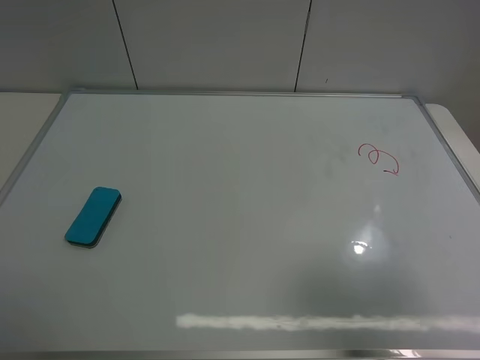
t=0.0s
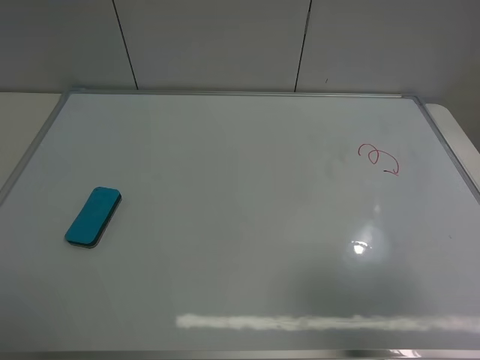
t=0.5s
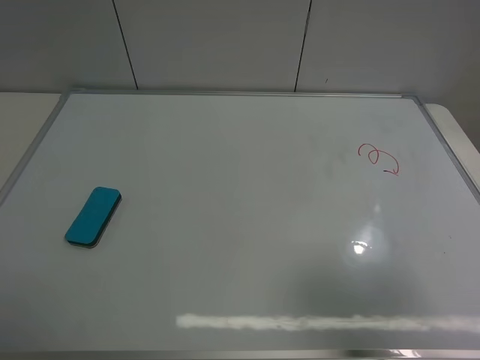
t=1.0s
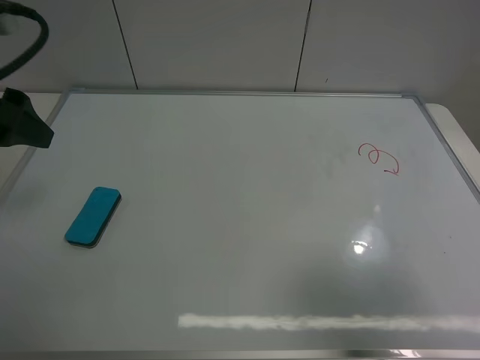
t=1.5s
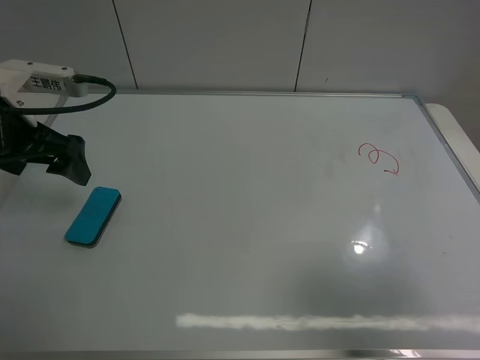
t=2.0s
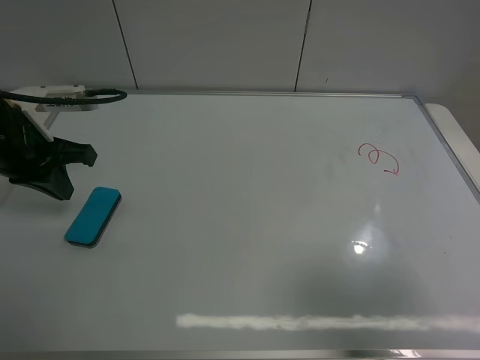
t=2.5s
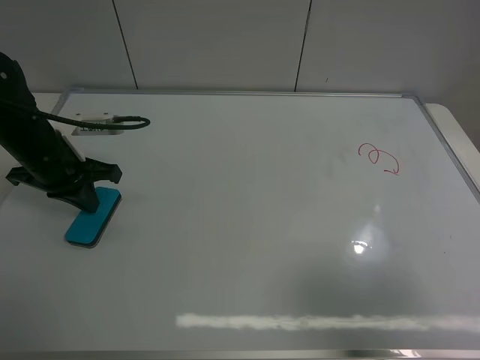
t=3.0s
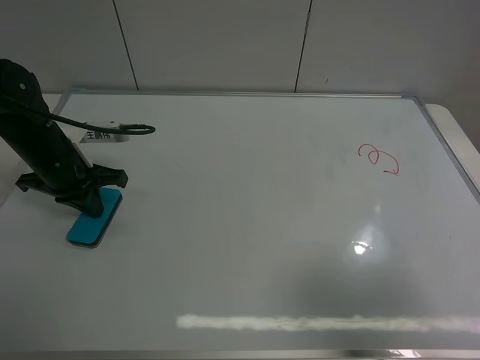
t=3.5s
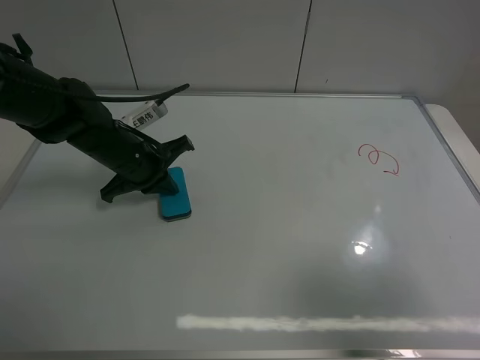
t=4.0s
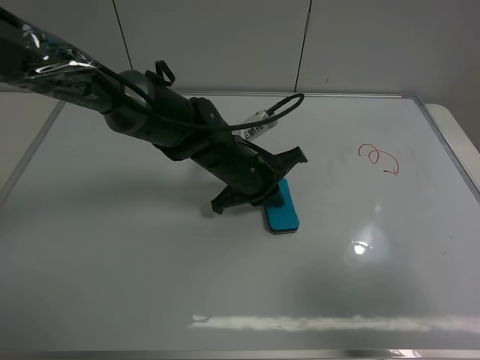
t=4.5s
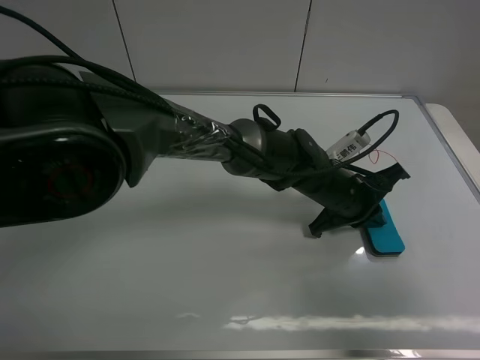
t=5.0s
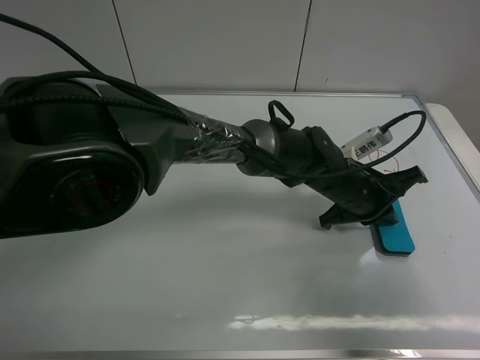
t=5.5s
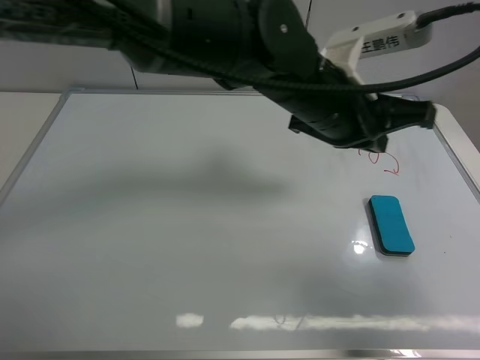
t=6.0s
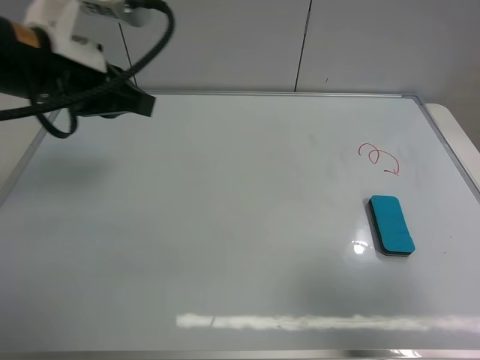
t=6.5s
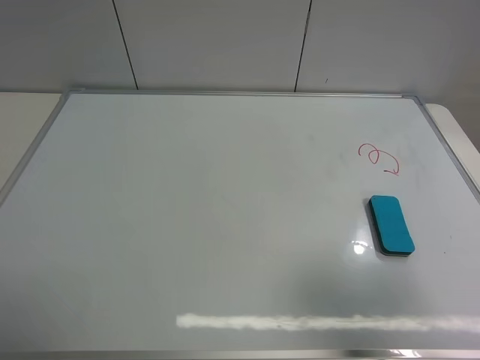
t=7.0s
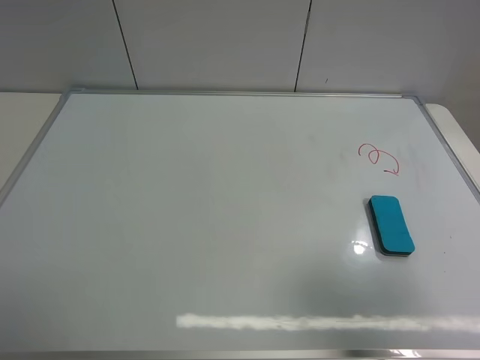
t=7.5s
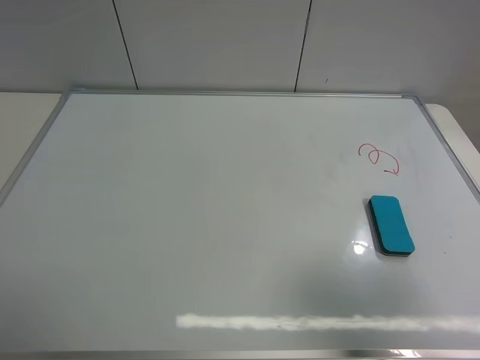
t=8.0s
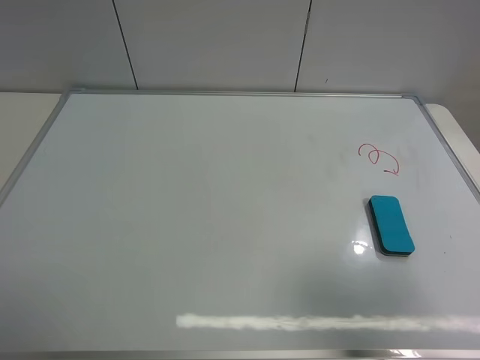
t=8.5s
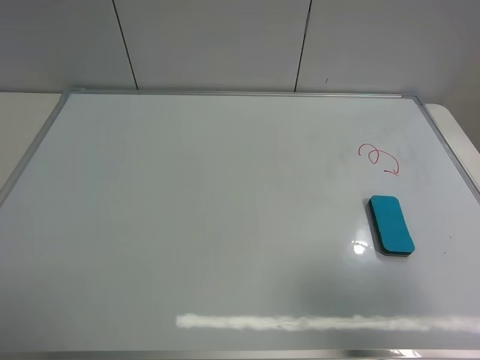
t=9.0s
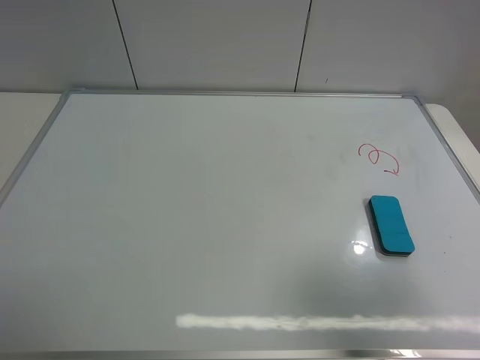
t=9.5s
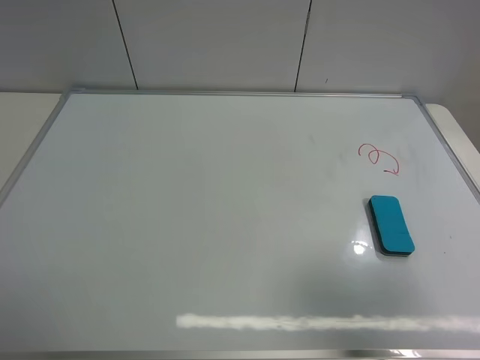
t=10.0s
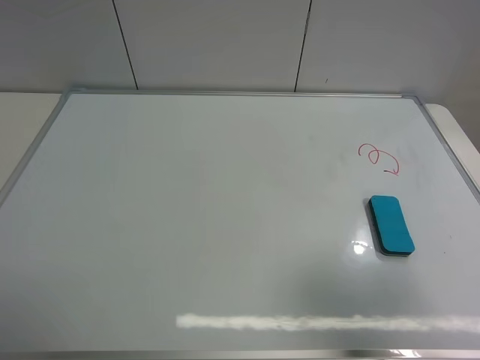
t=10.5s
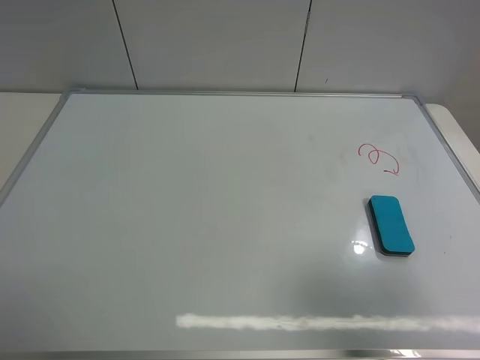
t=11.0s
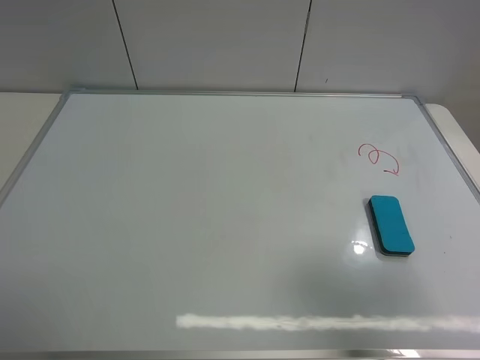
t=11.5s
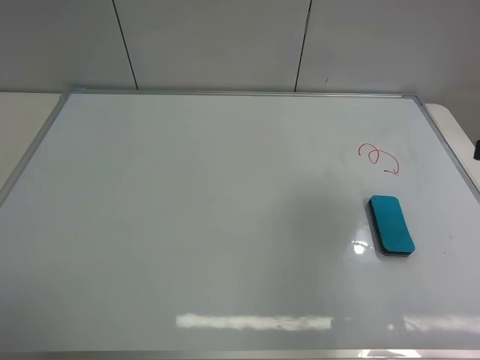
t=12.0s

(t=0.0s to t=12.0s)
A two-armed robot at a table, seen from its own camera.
Task of the whole recording: use the left gripper to place the eraser in the right, use the right gripper to pick up the eraser, wipe the notes on the whiteboard clean, and then put it down.
Step, t=0.0s - t=5.5s: Move the board eraser to the right of the whiteboard with left gripper.
t=0.0s - t=2.0s: The left gripper travels forward by some 25 cm.
t=2.0s - t=4.0s: The left gripper shifts some 15 cm downward and to the right, and closes its fingers.
t=4.0s - t=6.0s: The left gripper travels to the right and upward by roughly 25 cm.
t=6.0s - t=8.0s: The left gripper shifts roughly 50 cm to the left and backward, and opens.
t=8.0s - t=10.0s: The two grippers keep their place.
t=10.0s - t=12.0s: The right gripper is displaced forward by about 15 cm.

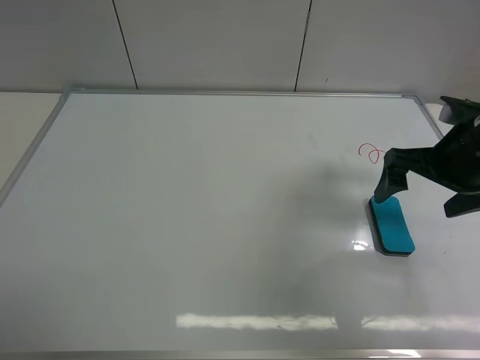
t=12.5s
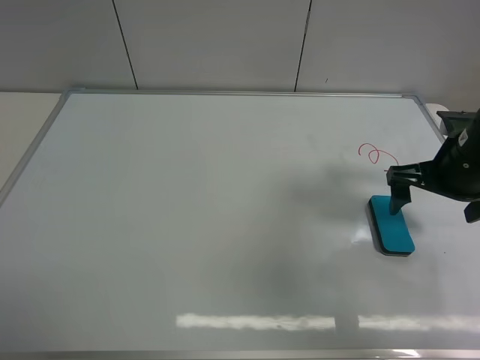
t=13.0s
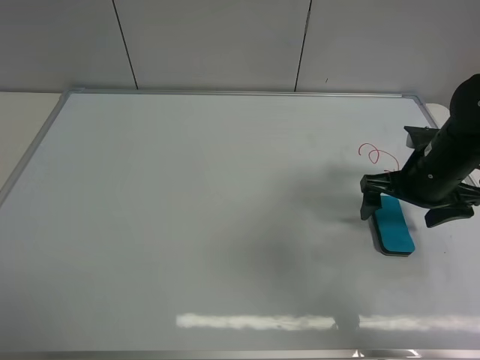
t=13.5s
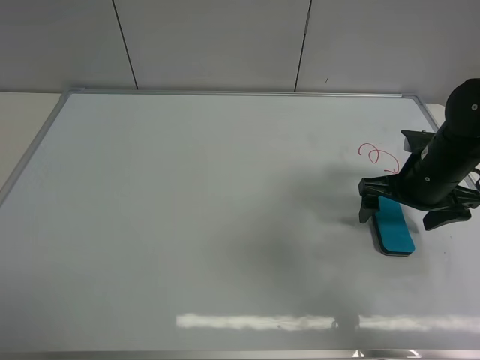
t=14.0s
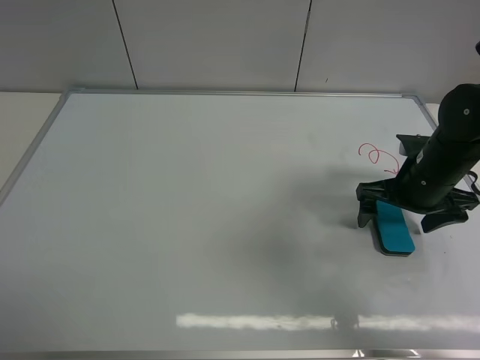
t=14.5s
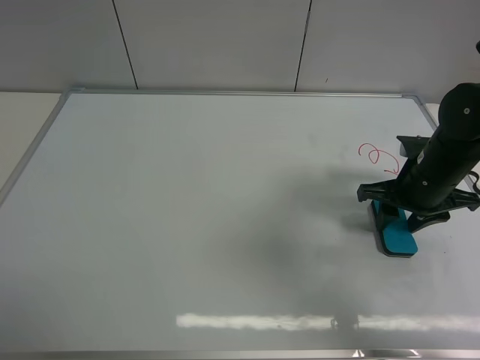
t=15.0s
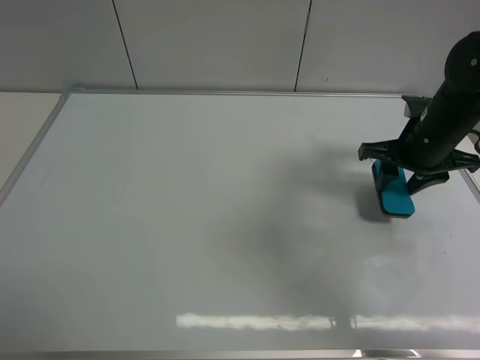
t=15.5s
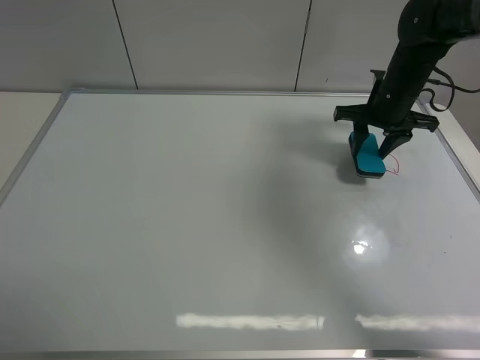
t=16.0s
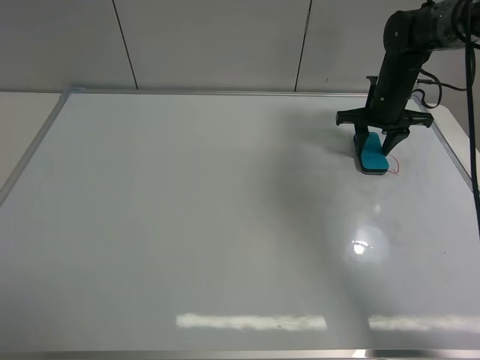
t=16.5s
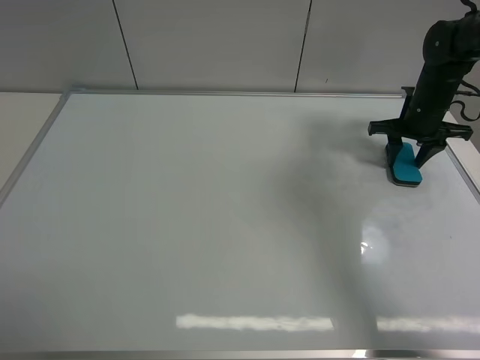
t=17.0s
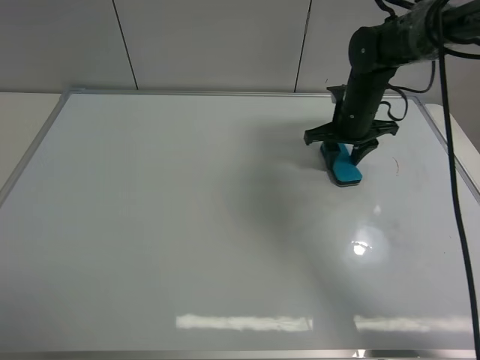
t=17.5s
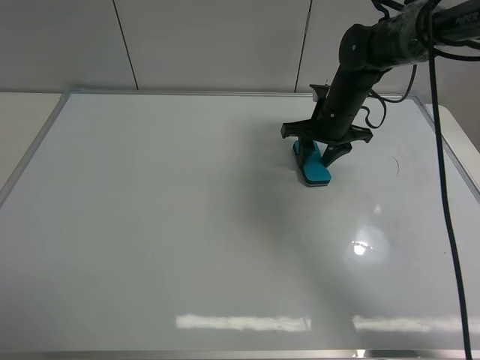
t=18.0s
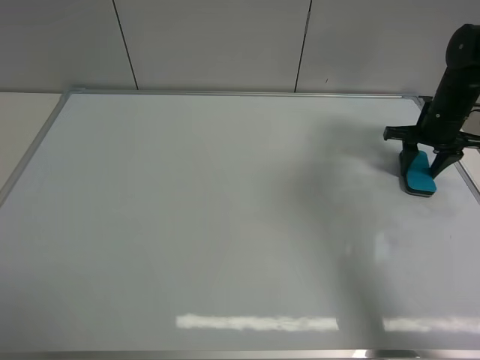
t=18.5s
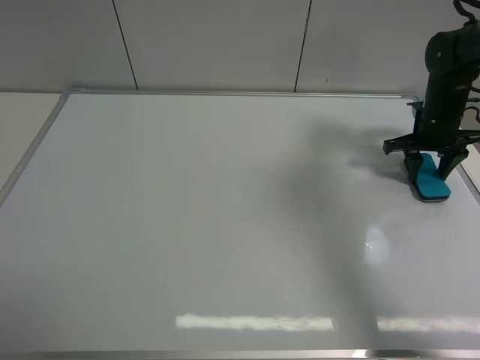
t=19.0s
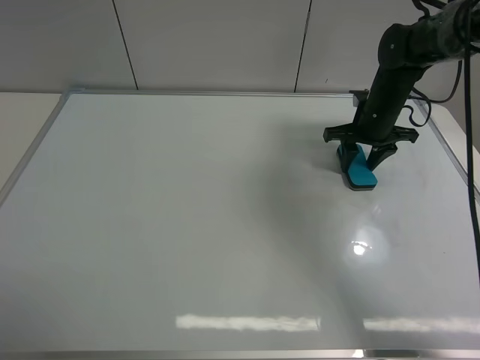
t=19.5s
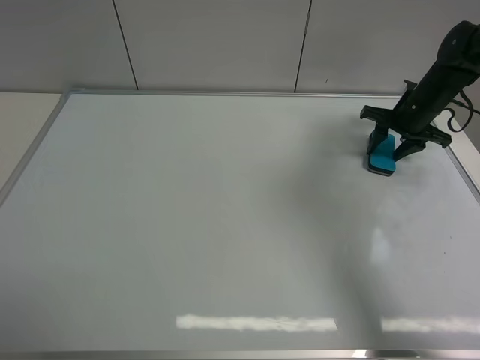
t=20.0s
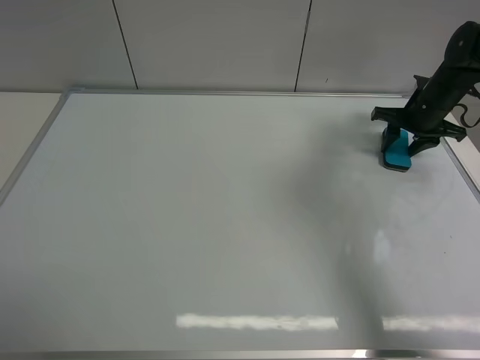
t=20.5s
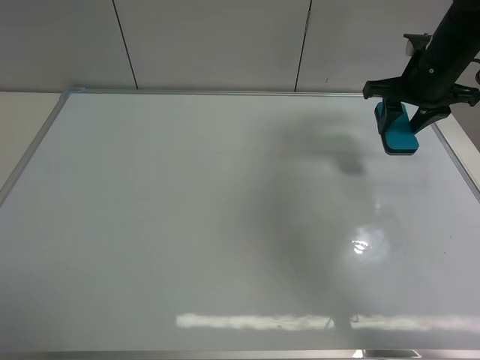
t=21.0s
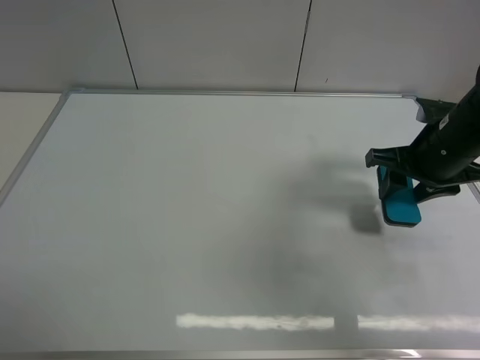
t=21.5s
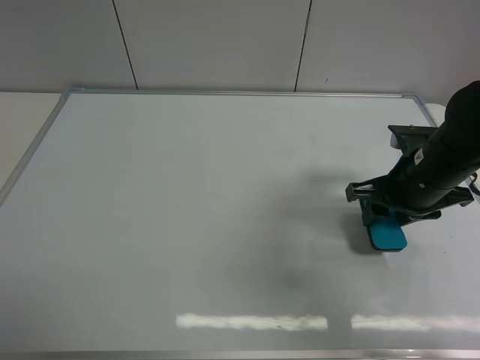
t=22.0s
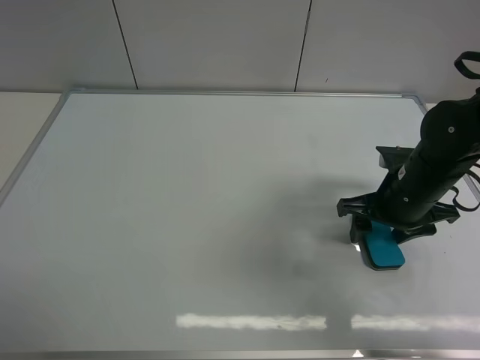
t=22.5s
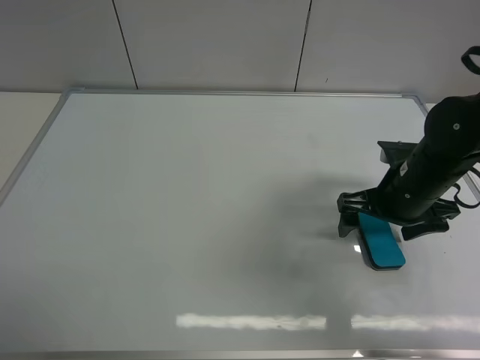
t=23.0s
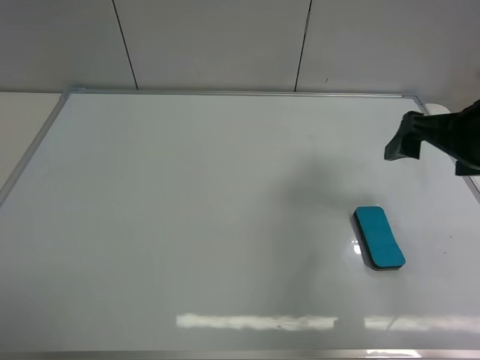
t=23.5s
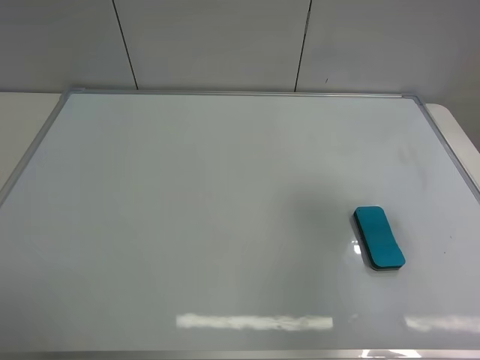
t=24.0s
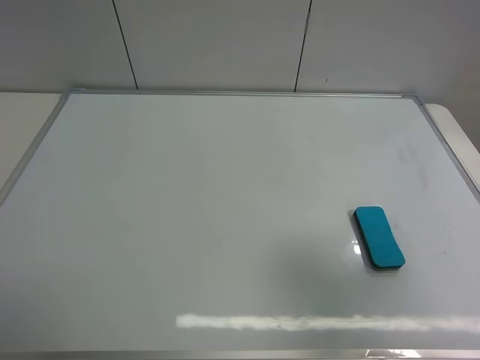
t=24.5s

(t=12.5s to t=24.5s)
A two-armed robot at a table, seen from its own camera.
Task of the whole recording: use the left gripper to place the eraser in the right, use the right gripper to pick up the eraser, wipe the notes on the whiteboard clean, and then put it down.
Step, t=12.5s - t=15.0s: Pick up the board eraser with right gripper.
Step, t=15.5s - t=20.5s: Wipe off the writing on the board with right gripper.
Step, t=21.0s - t=22.5s: Place the board eraser on the right side of board with right gripper.
t=12.5s - t=14.5s: The right gripper shifts about 5 cm downward.
t=14.5s - t=16.5s: The right gripper heads forward, covering about 20 cm, and closes.
t=16.5s - t=18.5s: The right gripper moves left and right over approximately 20 cm, changing direction 2 times.
t=18.5s - t=20.5s: The right gripper reaches roughly 10 cm to the left, then returns.
t=20.5s - t=22.5s: The right gripper is displaced backward and to the left by approximately 20 cm, and opens up.
t=22.5s - t=24.5s: The right gripper travels backward and upward by roughly 30 cm, and opens.

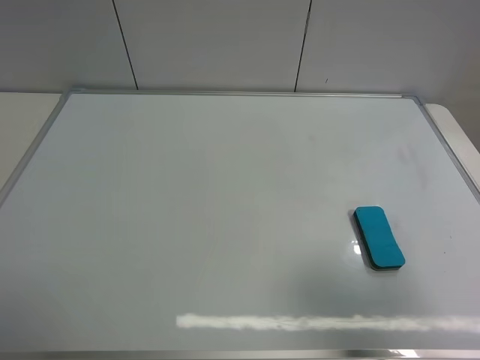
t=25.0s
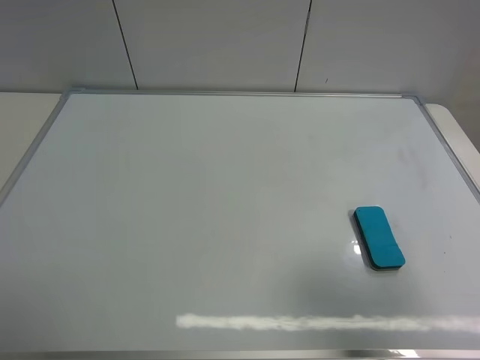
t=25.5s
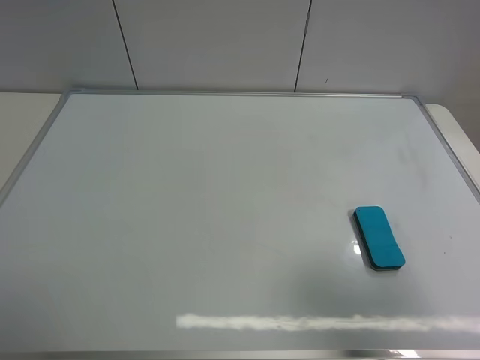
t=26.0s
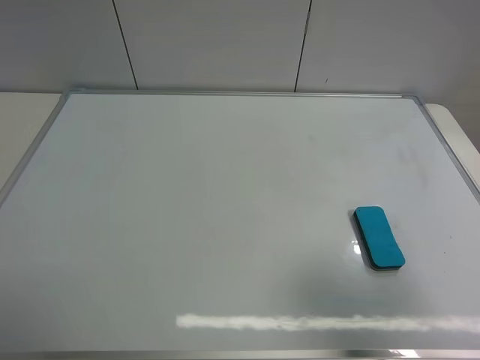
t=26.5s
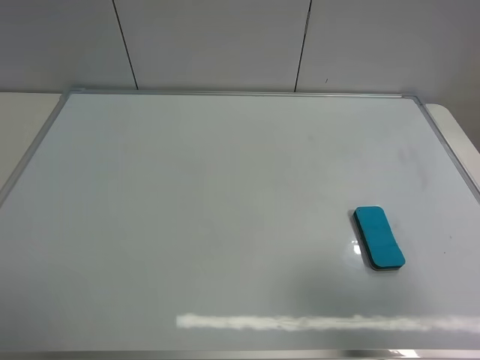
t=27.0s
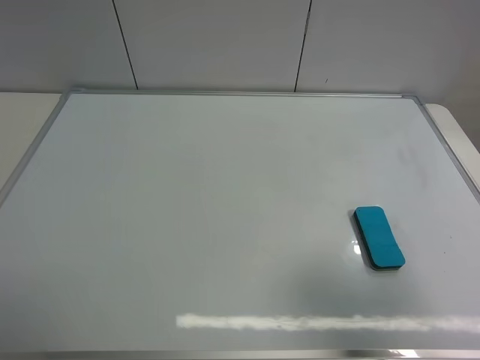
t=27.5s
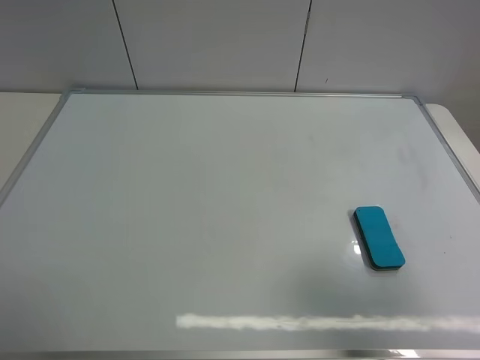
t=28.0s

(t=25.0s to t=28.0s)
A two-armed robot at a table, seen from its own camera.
Task of the whole recording: use the left gripper to place the eraser in the right, use the right gripper to pick up the eraser, wipe the notes on the whiteboard clean, and then put it down.
t=25.0s - t=28.0s: The two grippers keep their place.
